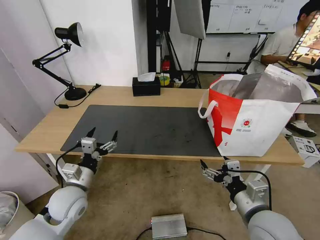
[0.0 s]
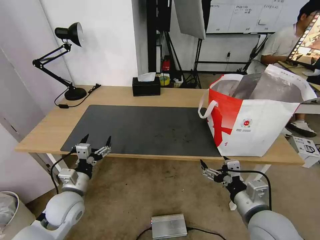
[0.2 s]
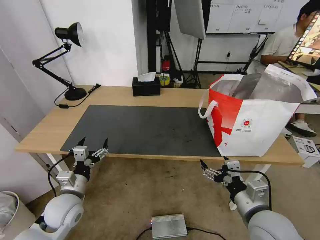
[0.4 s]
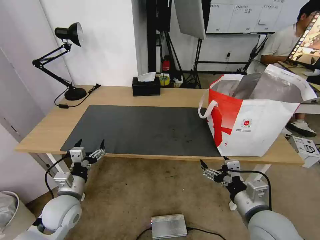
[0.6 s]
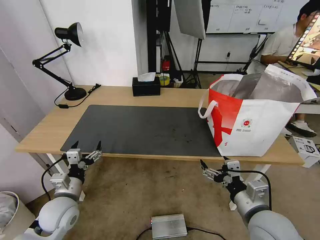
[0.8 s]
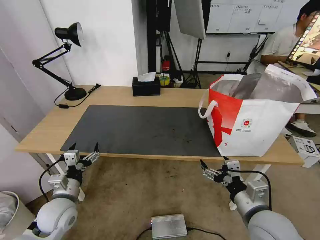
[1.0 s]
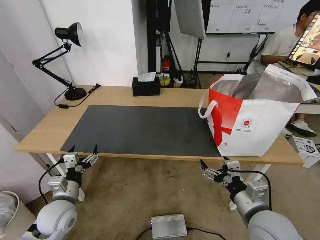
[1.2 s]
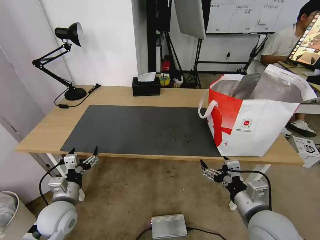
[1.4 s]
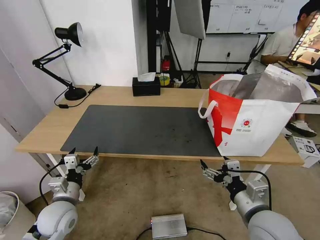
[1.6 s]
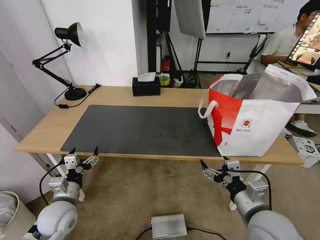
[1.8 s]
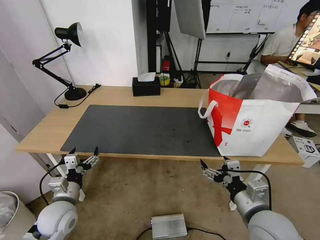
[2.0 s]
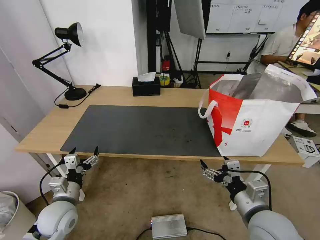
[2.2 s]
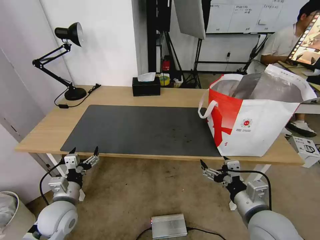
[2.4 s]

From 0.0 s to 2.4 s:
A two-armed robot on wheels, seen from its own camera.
Task of the whole recording: Pick up the trash from the table and place it into the takeout bag.
From 0.0 s to 1.2 s: The left gripper changes place by approximately 5 cm.
From 1.2 s to 2.4 s: Neither gripper changes place.

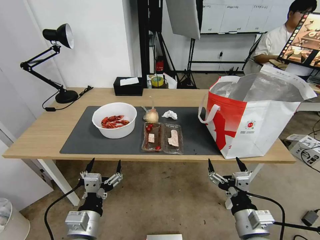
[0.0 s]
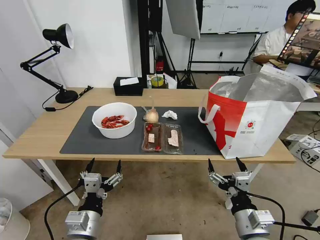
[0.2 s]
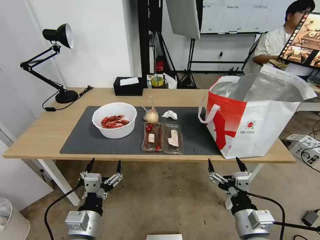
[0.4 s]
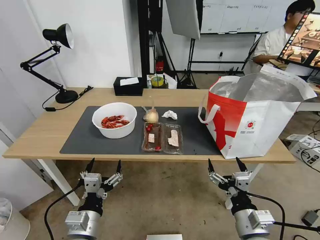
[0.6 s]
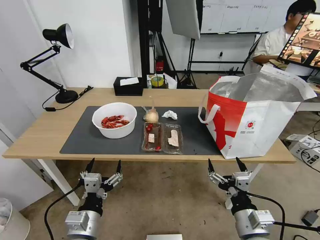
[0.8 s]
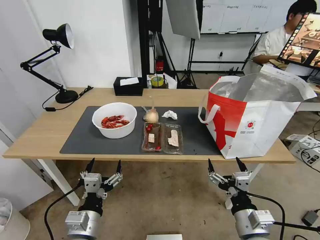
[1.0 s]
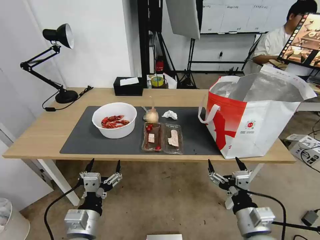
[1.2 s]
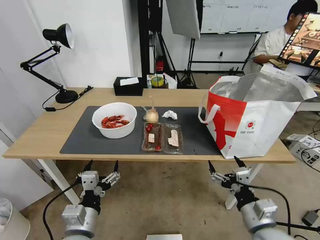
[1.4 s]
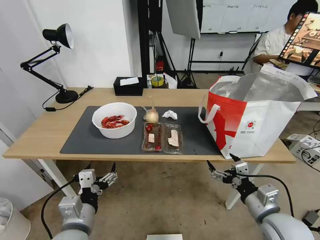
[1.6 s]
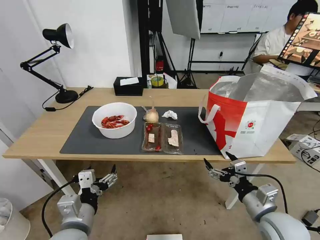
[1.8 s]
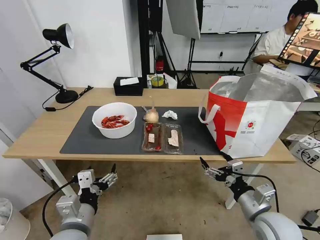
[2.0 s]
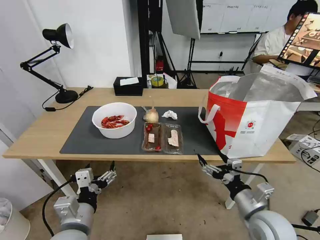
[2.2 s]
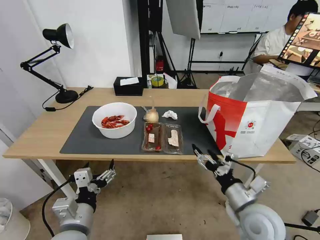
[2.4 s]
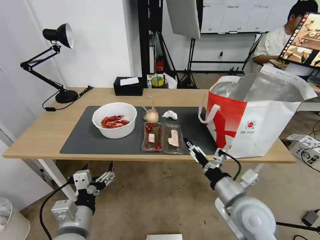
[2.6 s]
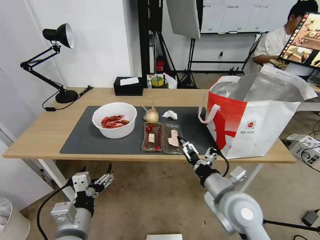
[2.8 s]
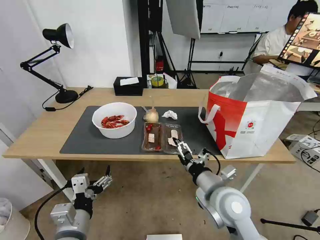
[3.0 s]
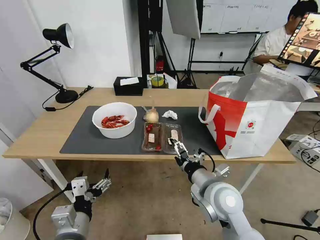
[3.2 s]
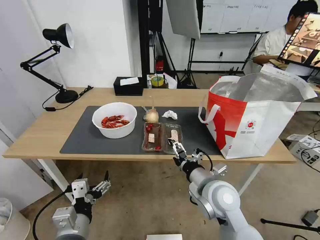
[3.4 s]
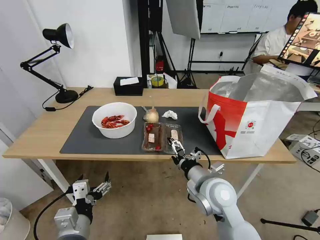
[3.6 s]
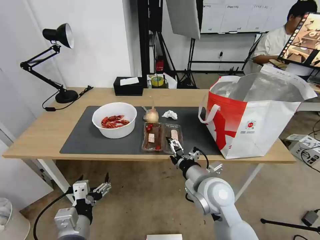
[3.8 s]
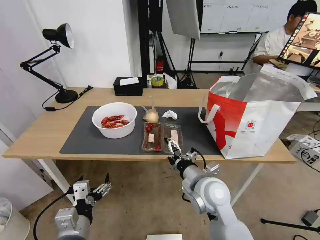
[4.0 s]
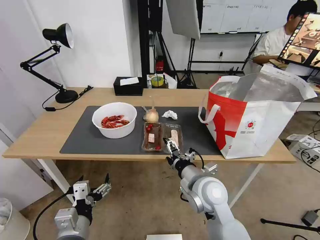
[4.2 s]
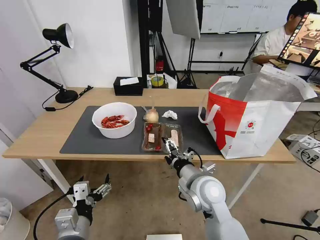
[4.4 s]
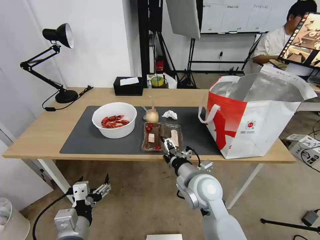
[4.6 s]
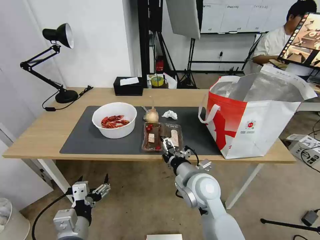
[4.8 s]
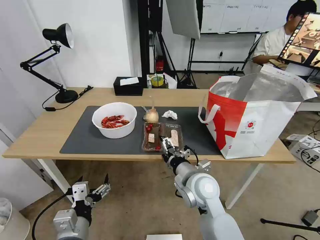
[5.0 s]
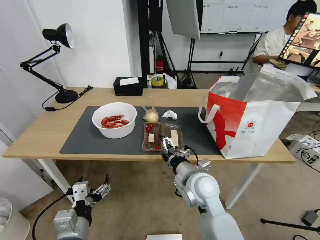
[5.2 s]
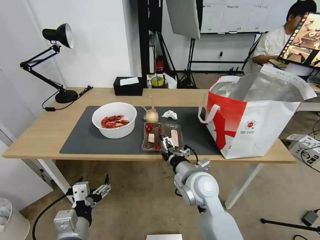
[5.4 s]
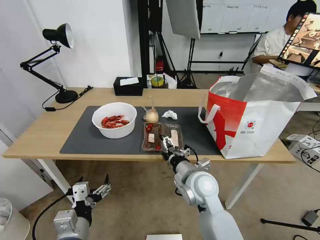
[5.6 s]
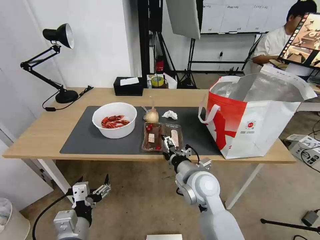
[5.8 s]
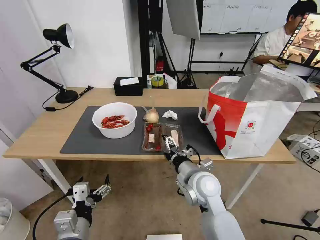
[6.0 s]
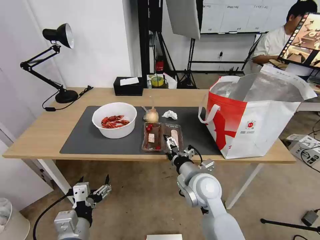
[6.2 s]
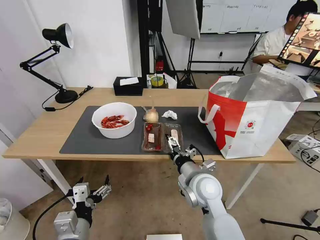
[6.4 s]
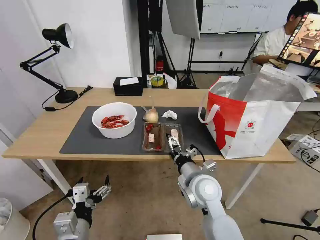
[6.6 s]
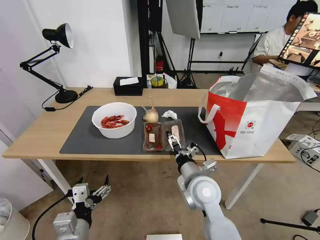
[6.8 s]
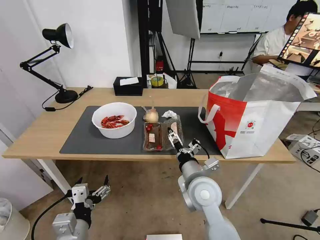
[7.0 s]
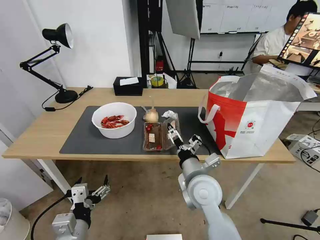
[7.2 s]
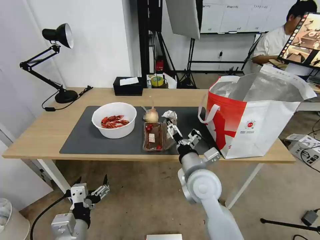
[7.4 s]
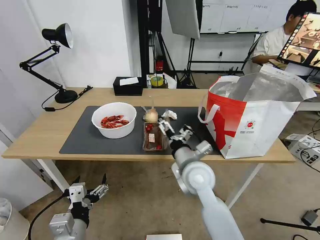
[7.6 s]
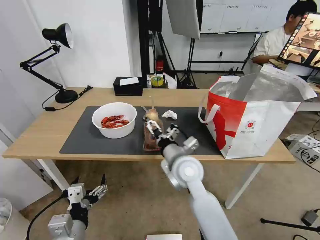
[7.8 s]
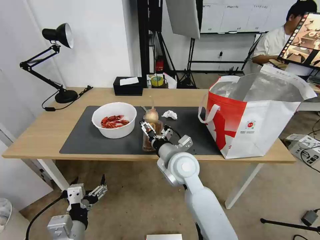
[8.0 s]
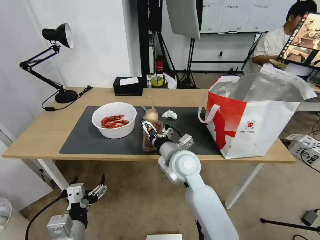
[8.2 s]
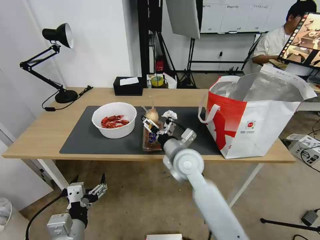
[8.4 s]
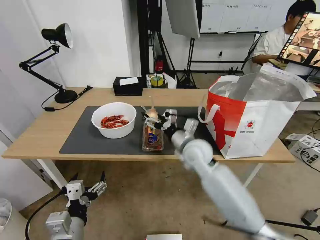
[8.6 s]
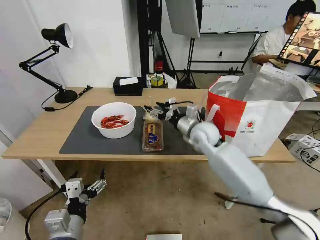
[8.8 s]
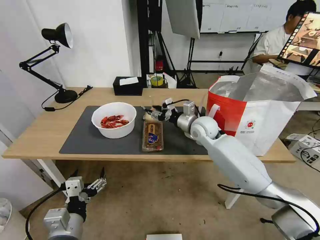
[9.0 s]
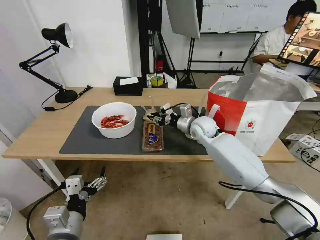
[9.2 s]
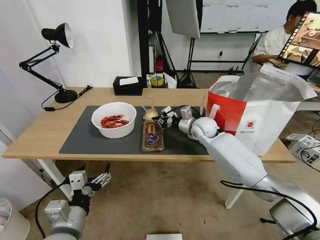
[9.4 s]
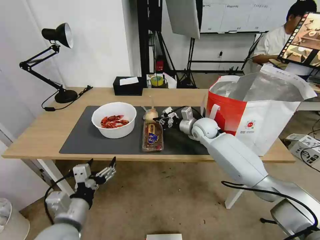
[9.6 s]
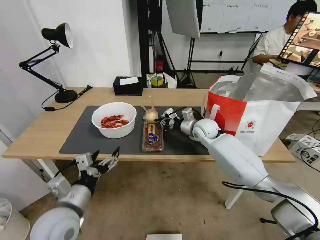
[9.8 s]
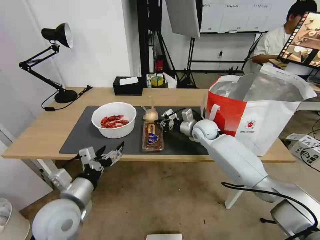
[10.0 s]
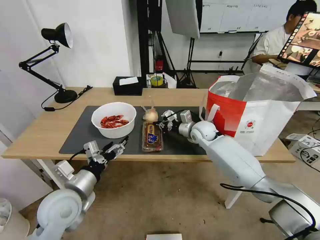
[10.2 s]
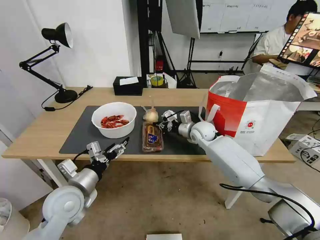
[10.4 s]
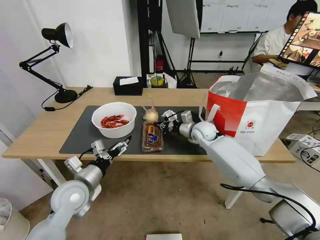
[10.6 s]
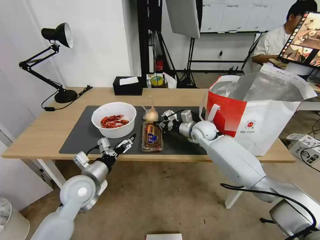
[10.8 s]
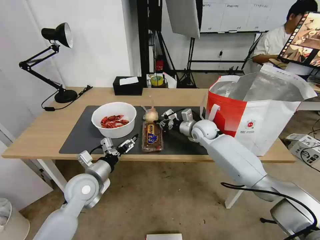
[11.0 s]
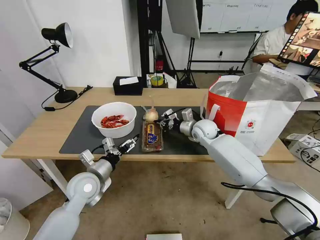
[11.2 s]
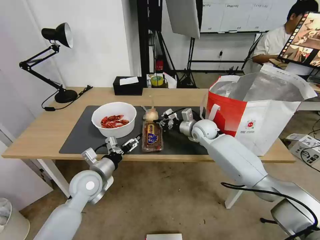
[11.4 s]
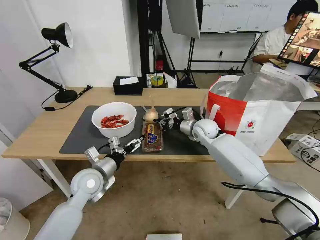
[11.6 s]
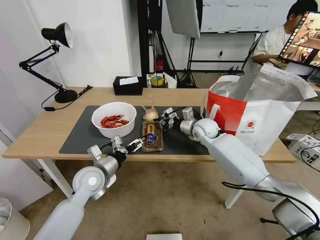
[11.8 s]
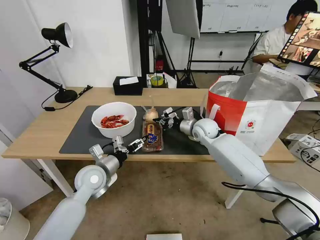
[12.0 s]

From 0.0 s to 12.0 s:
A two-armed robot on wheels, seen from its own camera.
Task of the whole recording: Pick up the trash from the table and place it into the takeout bag.
From 1.6 s to 3.0 s: The right gripper travels to the left and forward by roughly 15 cm.
From 3.0 s to 4.4 s: The right gripper moves roughly 5 cm.
From 4.4 s to 6.0 s: The grippers stay close to where they were, moving slightly.
From 7.6 s to 9.0 s: The right gripper moves forward, roughly 20 cm, and closes.
From 9.0 s to 10.4 s: The right gripper heads downward, covering some 5 cm, and closes its fingers. The left gripper heads forward, covering roughly 15 cm.
From 10.4 s to 12.0 s: The left gripper goes approximately 10 cm forward.

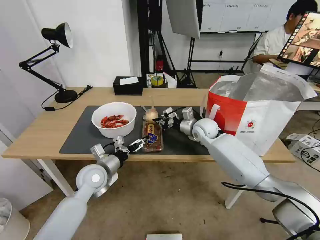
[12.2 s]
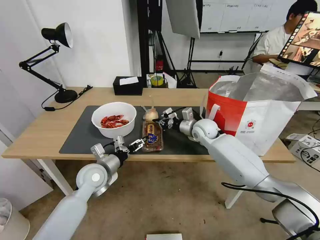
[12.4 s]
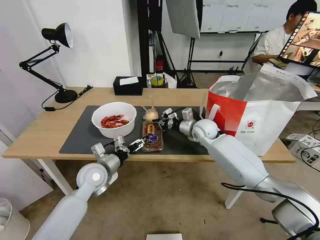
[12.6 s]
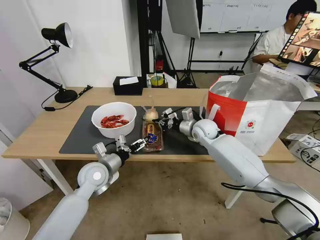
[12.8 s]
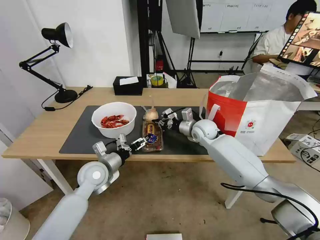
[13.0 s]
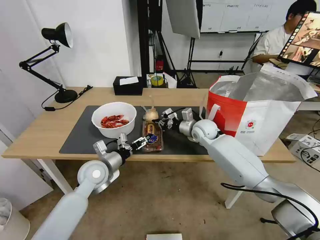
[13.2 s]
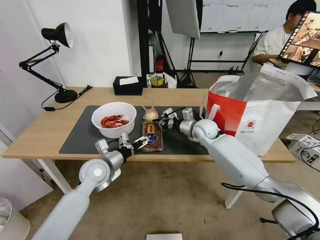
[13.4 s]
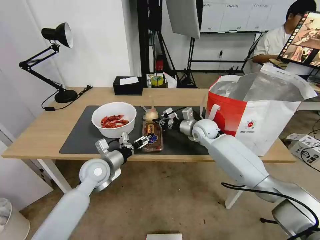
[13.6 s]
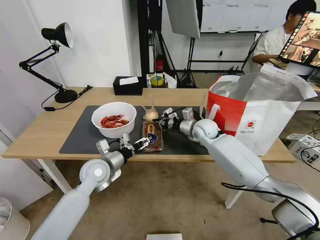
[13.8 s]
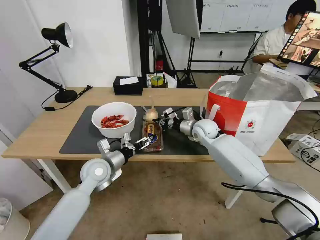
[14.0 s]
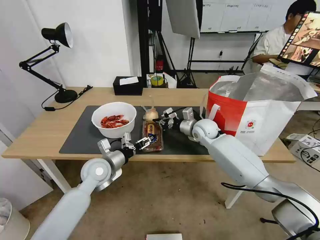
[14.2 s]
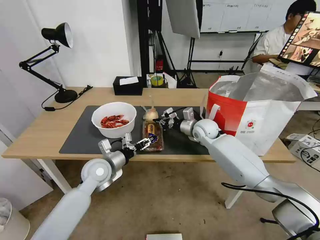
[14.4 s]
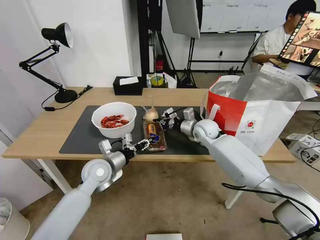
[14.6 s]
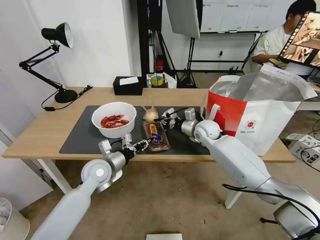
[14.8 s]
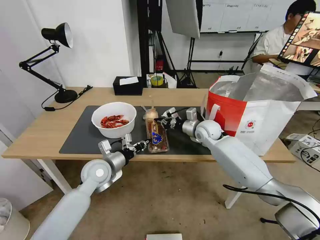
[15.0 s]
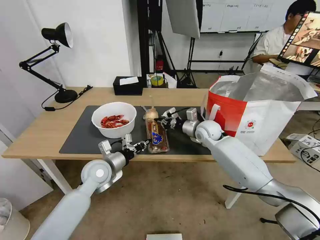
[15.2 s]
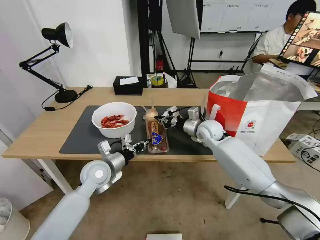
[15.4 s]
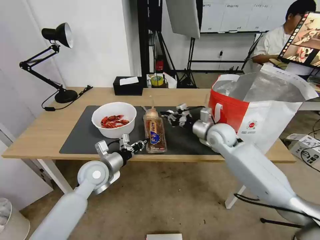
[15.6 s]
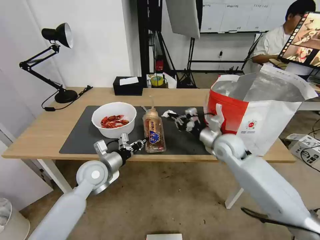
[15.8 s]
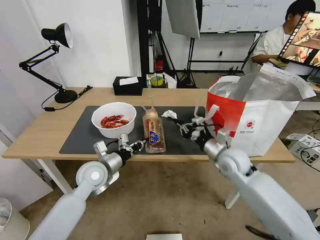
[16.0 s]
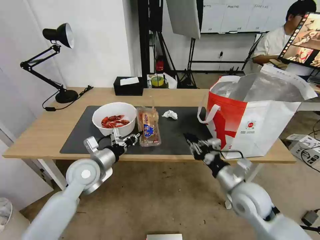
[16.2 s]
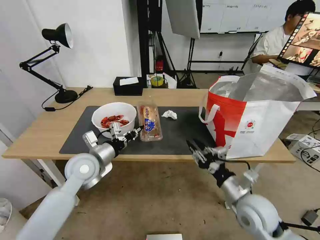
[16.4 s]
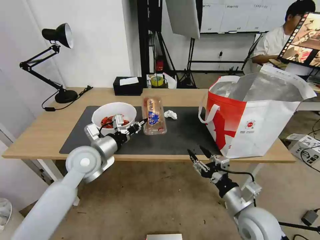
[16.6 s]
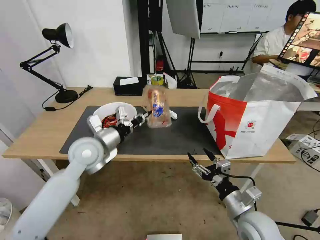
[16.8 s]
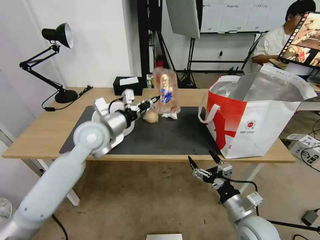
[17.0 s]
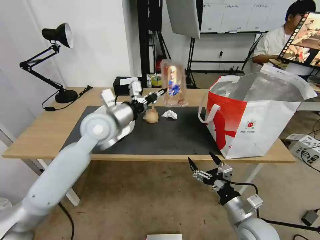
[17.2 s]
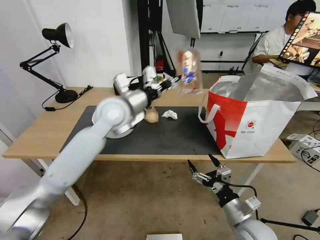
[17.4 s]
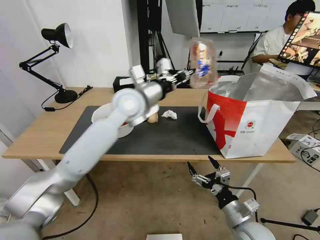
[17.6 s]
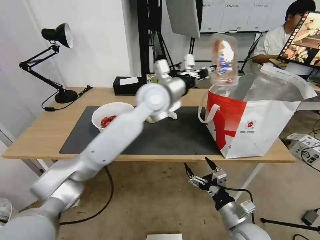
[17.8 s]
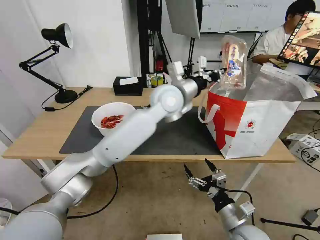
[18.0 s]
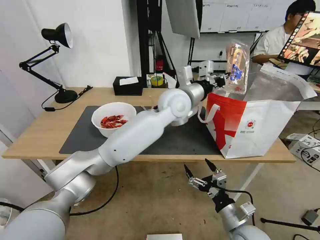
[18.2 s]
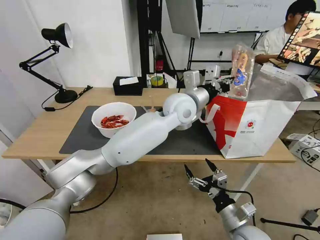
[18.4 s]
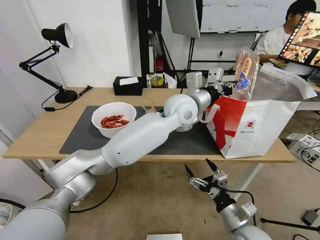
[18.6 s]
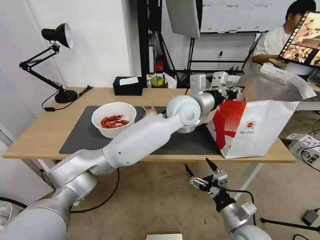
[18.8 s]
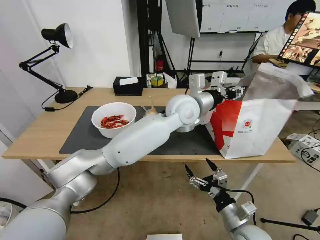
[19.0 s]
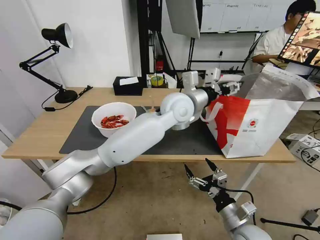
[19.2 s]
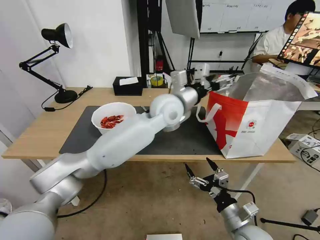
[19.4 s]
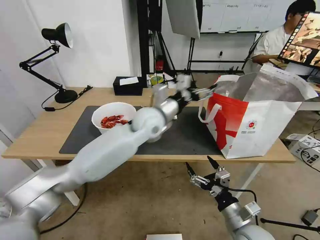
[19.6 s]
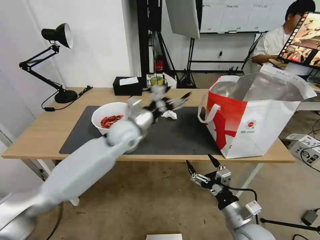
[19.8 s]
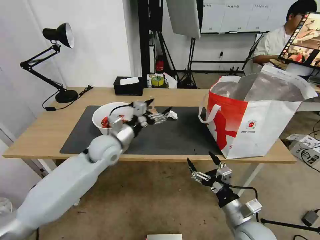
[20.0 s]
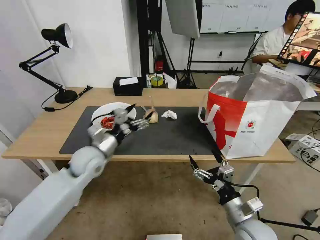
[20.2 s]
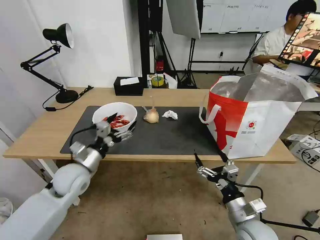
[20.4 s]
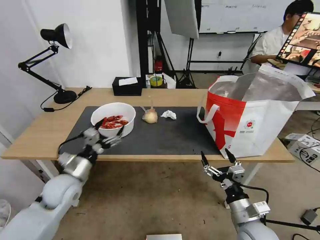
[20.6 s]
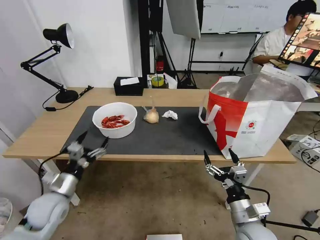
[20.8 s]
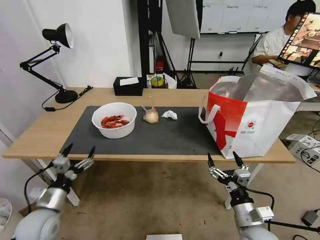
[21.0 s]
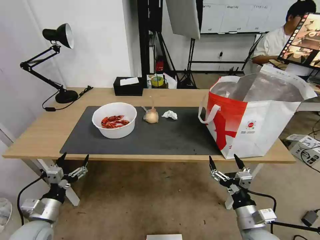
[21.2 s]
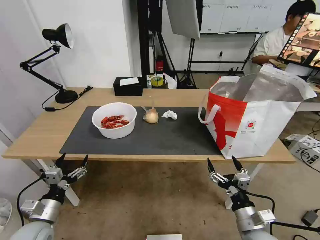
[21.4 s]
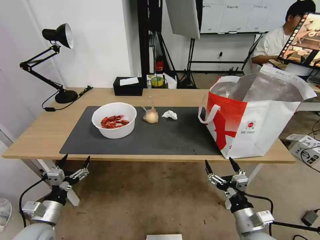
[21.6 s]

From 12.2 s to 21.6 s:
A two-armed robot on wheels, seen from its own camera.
Task of the whole recording: Pick up the trash from the table and place it into the takeout bag.
From 12.2 s to 13.8 s: The grippers stay close to where they were, moving slightly.
From 13.8 s to 15.4 s: The left gripper closes up.
From 15.4 s to 17.0 s: The right gripper heads backward, covering some 30 cm, and opens; the left gripper is displaced upward by approximately 15 cm.
From 17.0 s to 18.4 s: The left gripper moves to the right, some 25 cm.
From 18.4 s to 20.0 s: The left gripper goes roughly 25 cm to the left and downward, and opens its fingers.
From 20.0 s to 21.6 s: The left gripper moves backward, to the left and downward, approximately 30 cm.
